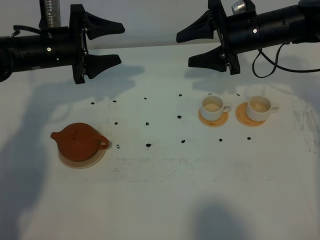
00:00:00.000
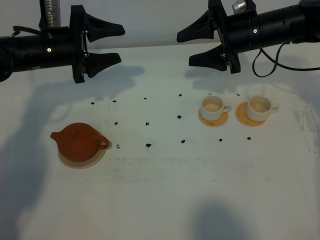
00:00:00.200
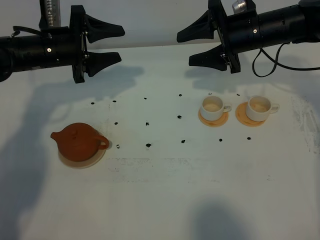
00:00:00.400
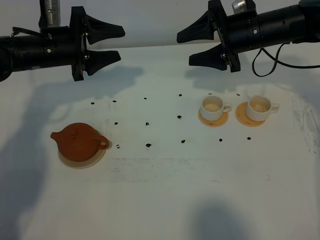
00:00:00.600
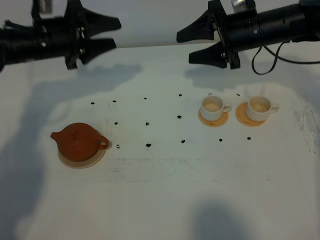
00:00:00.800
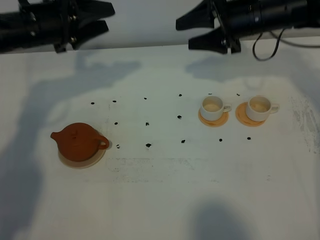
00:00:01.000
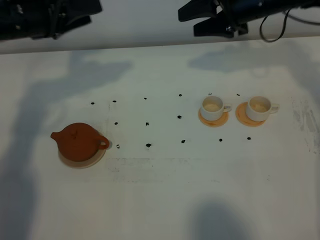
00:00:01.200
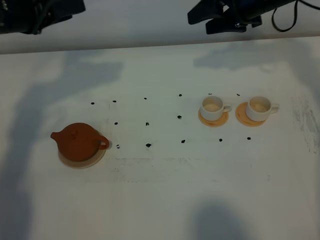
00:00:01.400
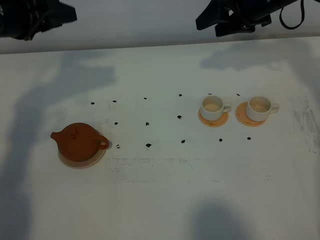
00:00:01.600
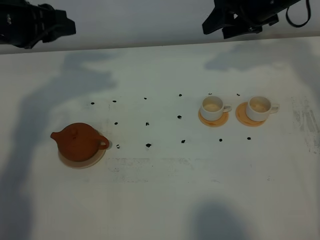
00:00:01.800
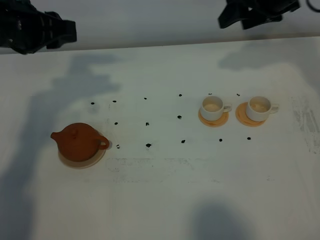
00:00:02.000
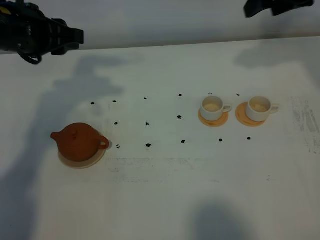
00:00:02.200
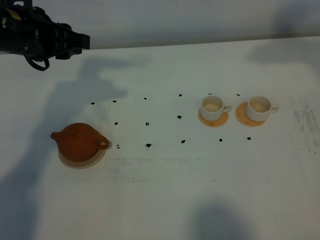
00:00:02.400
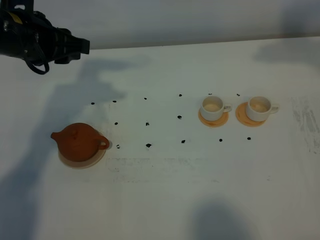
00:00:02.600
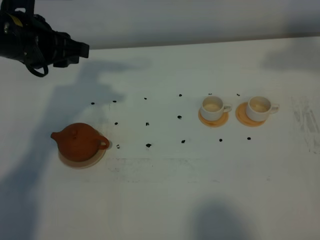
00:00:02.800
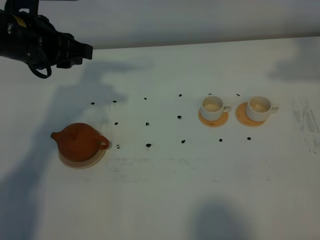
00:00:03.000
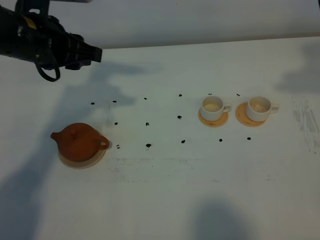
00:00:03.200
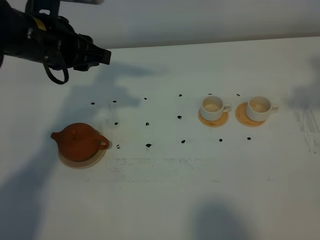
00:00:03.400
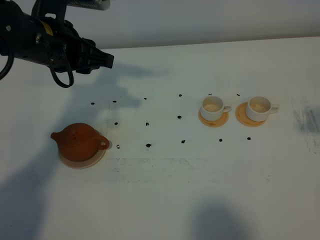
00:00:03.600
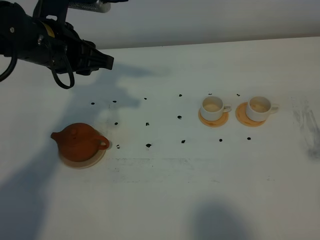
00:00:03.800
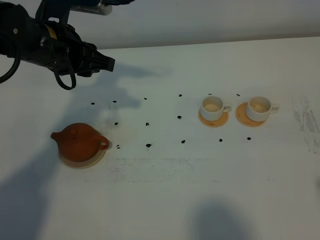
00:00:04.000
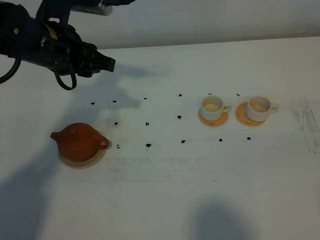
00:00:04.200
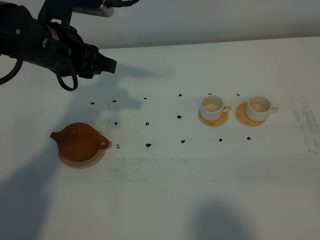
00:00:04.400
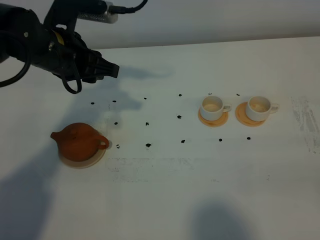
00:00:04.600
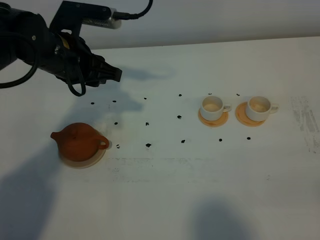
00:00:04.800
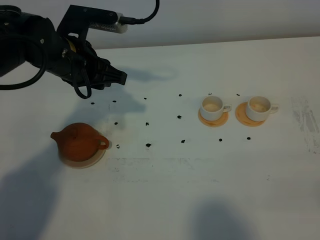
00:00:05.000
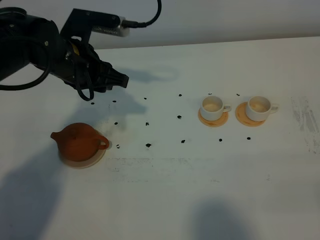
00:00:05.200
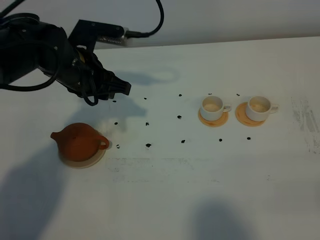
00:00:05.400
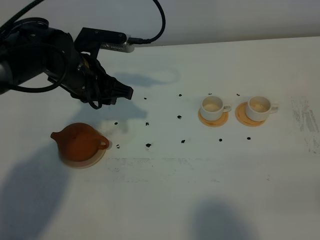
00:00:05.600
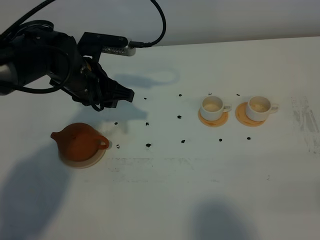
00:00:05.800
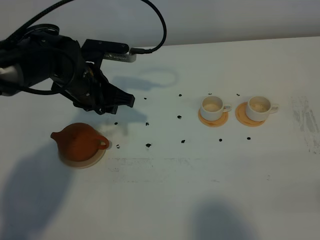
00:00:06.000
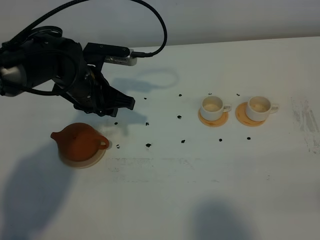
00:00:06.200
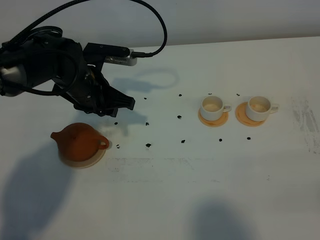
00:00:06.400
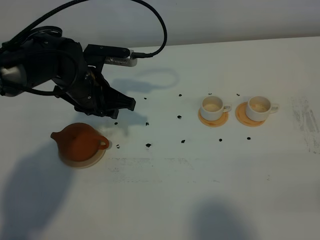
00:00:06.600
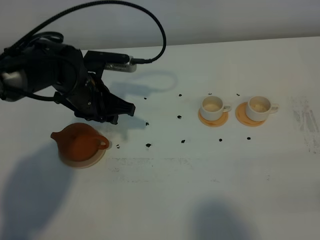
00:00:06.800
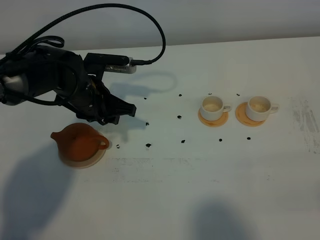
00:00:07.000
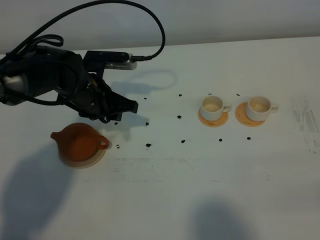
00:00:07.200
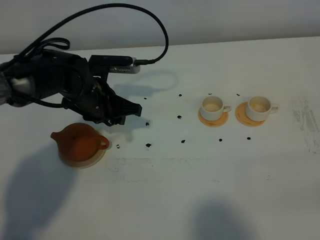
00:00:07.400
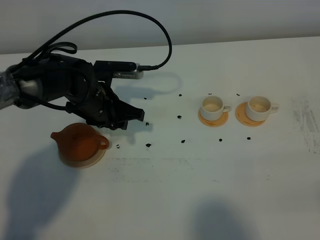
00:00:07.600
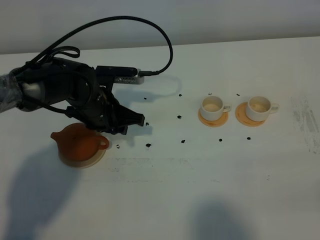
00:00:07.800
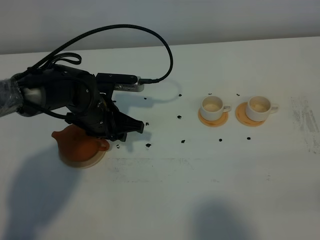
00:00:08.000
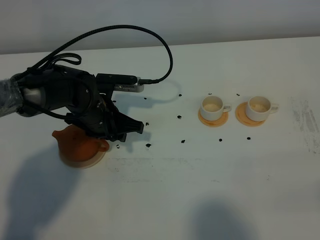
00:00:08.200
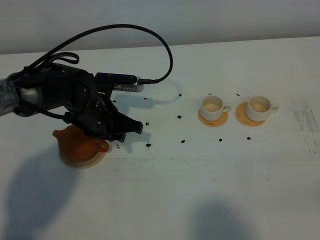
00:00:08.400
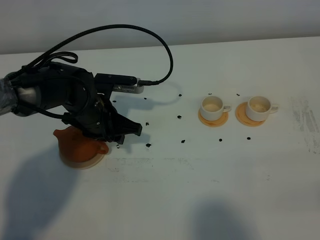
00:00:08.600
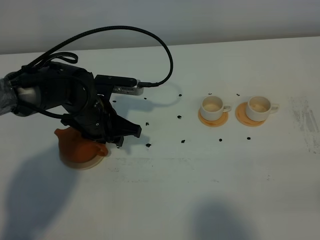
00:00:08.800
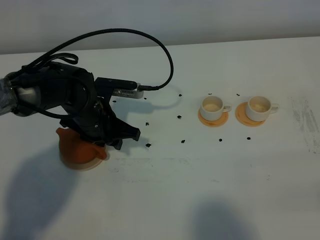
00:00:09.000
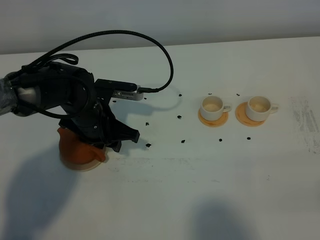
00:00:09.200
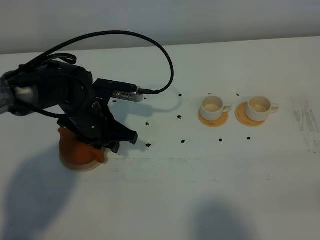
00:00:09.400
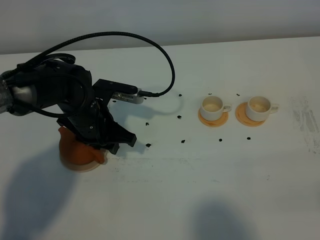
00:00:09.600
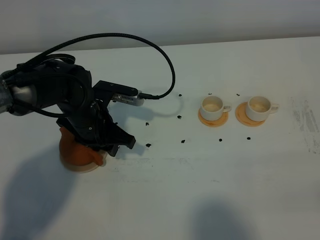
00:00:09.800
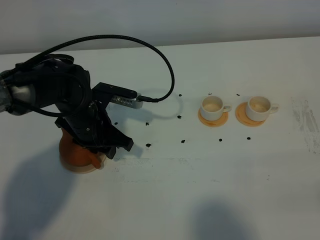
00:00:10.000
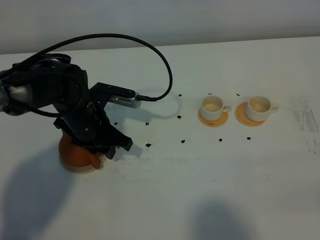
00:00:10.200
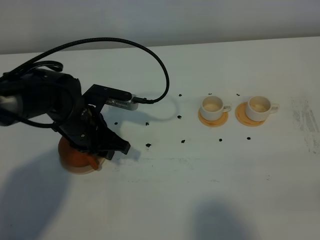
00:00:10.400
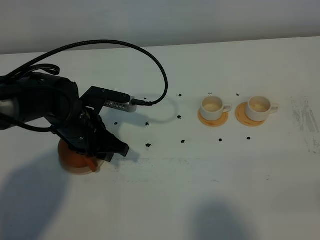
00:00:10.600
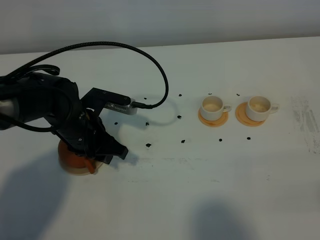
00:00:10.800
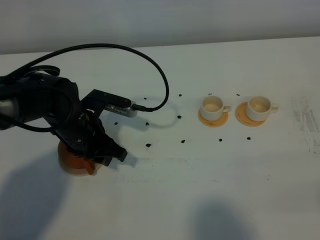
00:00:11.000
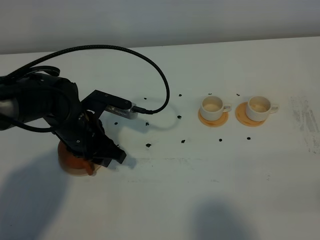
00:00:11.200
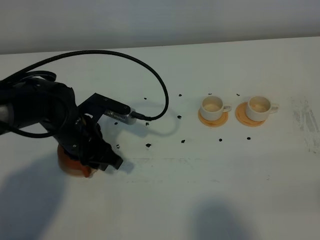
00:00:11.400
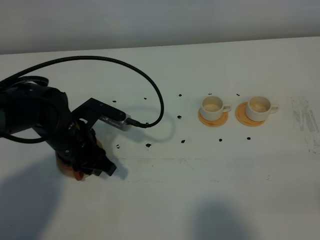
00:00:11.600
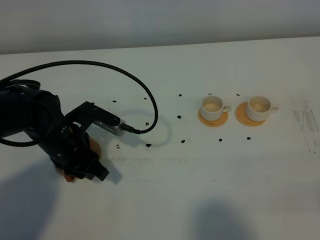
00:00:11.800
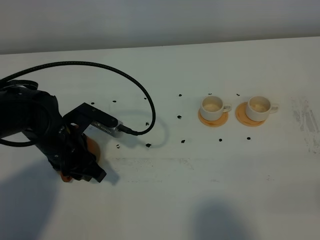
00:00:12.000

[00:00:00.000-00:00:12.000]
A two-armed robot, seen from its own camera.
Task of the whole recording: grasp the brown teapot and pour the tea into the two white teacups one by one, put the brown teapot back in its original place.
00:00:00.000 to 00:00:01.600: The left gripper heads upward and backward, covering about 15 cm; the right gripper moves upward, approximately 5 cm.
00:00:01.600 to 00:00:03.000: The left gripper heads to the right, covering roughly 5 cm, while the right gripper shifts approximately 20 cm backward, upward and to the right.
00:00:03.000 to 00:00:04.400: The right gripper is displaced backward and downward by approximately 30 cm.
00:00:04.400 to 00:00:06.000: The left gripper goes about 10 cm downward.
00:00:06.000 to 00:00:07.600: The right gripper closes up.
00:00:07.600 to 00:00:10.400: The grippers move only a little.
00:00:10.400 to 00:00:12.000: There are only small adjustments of the grippers.

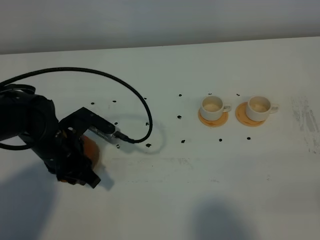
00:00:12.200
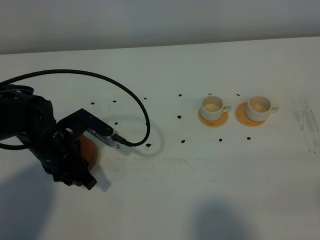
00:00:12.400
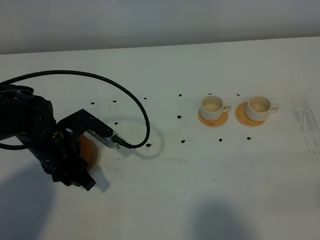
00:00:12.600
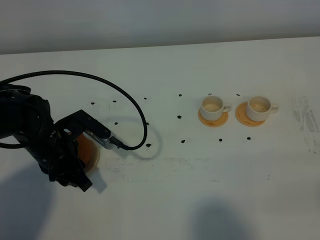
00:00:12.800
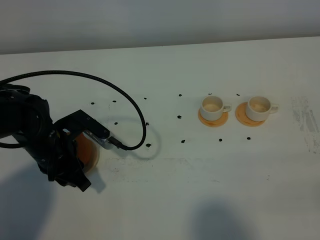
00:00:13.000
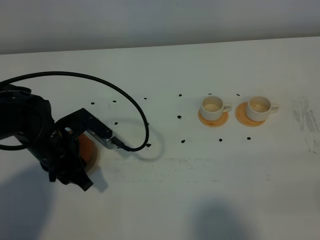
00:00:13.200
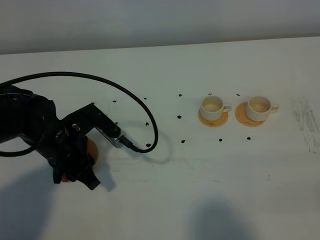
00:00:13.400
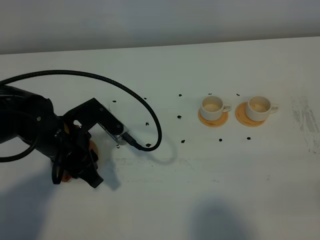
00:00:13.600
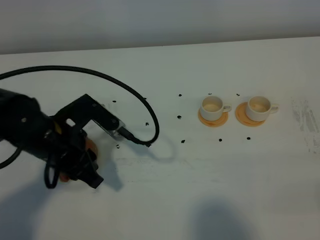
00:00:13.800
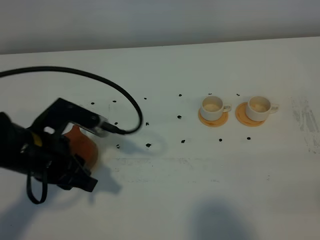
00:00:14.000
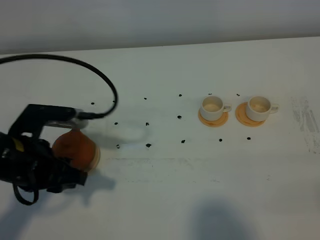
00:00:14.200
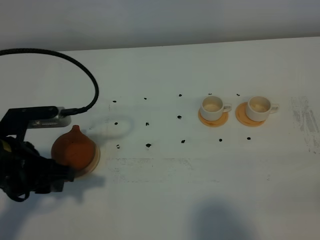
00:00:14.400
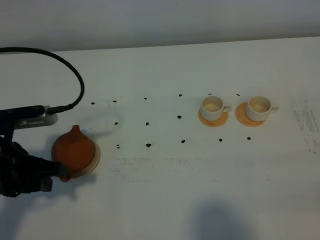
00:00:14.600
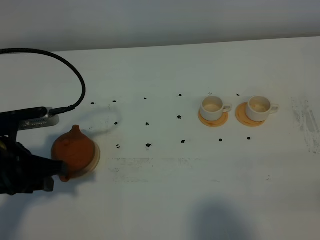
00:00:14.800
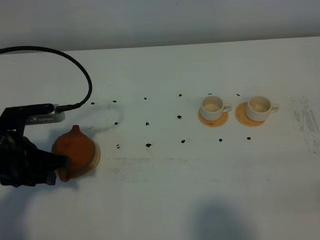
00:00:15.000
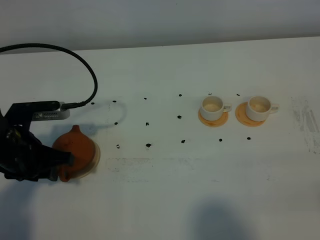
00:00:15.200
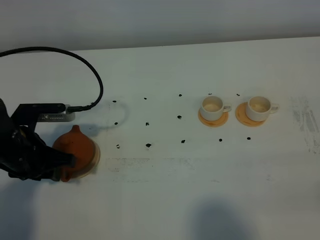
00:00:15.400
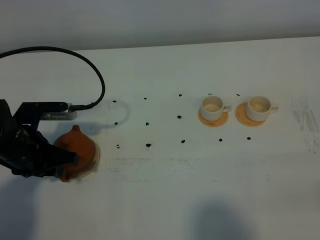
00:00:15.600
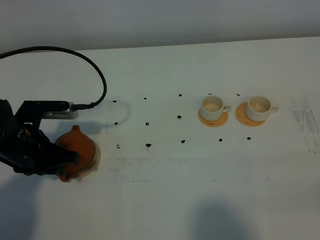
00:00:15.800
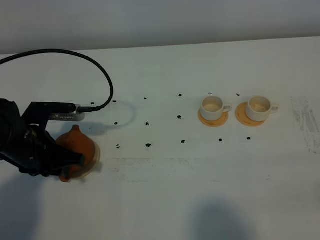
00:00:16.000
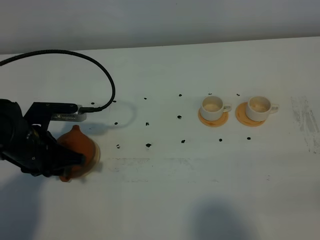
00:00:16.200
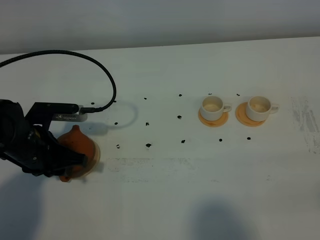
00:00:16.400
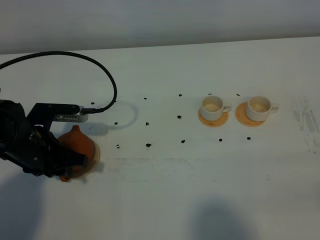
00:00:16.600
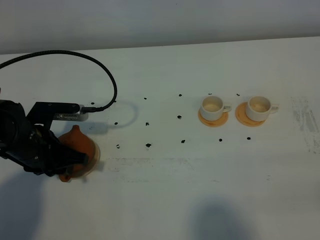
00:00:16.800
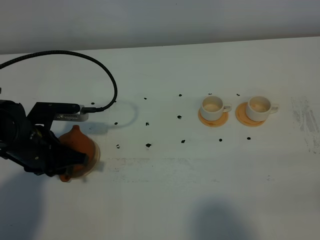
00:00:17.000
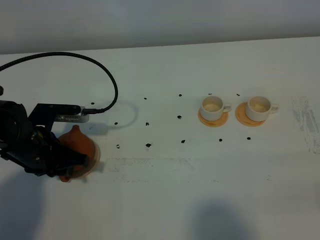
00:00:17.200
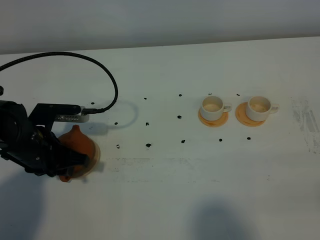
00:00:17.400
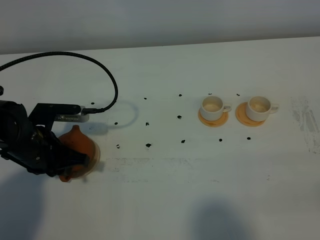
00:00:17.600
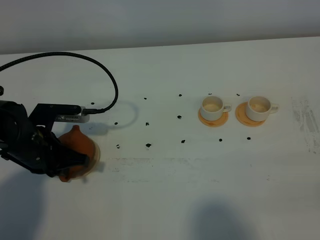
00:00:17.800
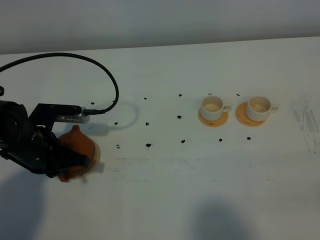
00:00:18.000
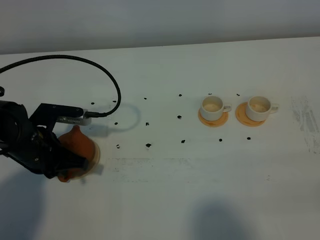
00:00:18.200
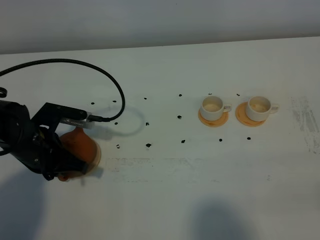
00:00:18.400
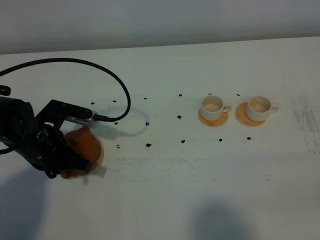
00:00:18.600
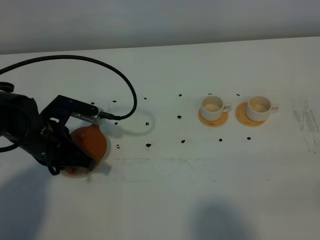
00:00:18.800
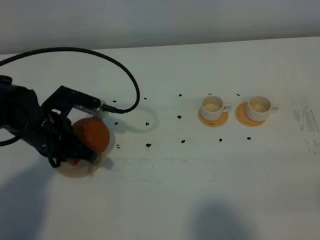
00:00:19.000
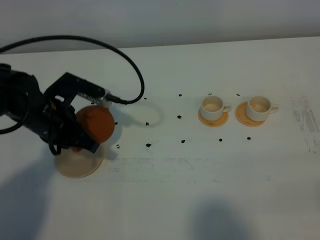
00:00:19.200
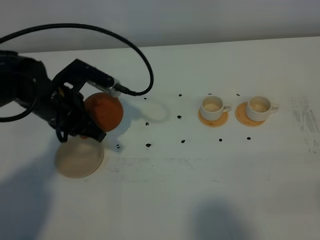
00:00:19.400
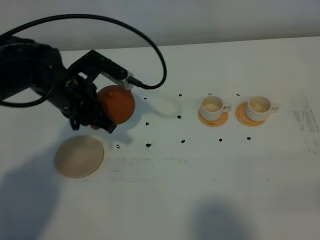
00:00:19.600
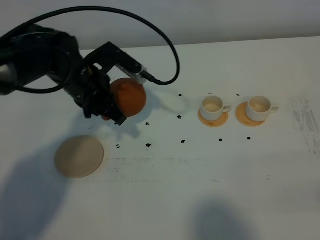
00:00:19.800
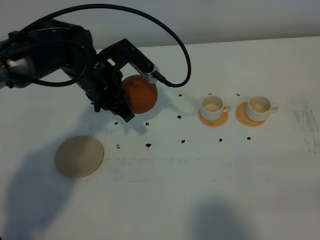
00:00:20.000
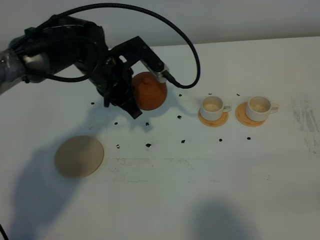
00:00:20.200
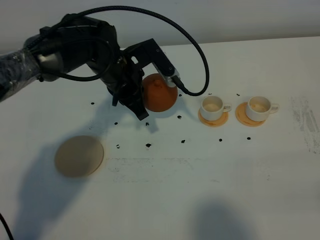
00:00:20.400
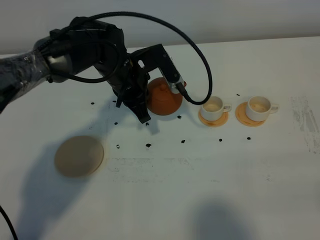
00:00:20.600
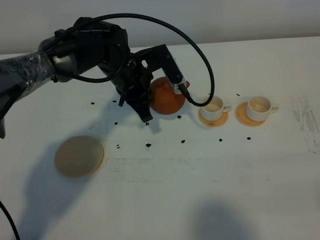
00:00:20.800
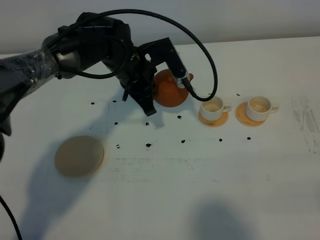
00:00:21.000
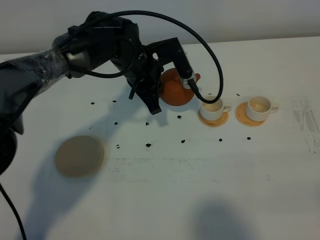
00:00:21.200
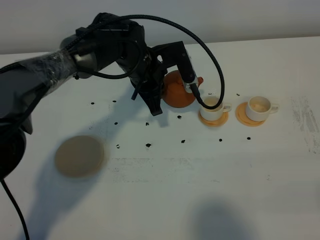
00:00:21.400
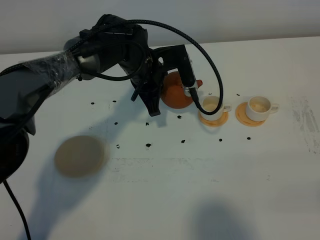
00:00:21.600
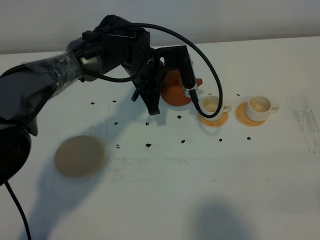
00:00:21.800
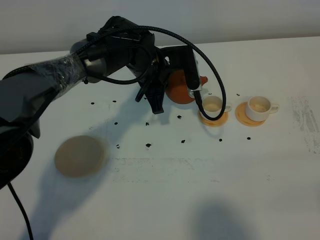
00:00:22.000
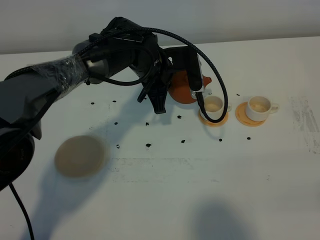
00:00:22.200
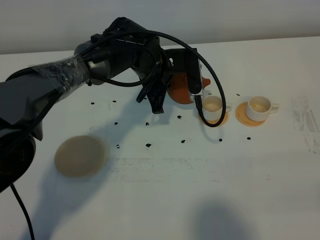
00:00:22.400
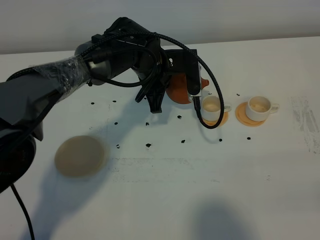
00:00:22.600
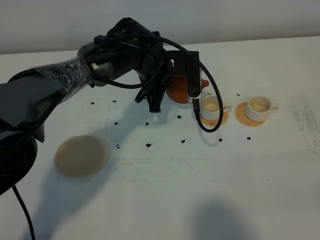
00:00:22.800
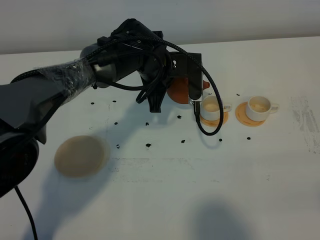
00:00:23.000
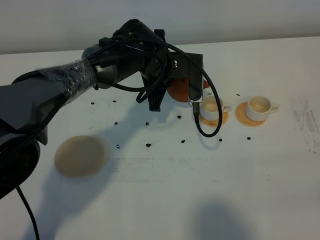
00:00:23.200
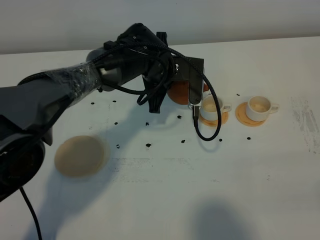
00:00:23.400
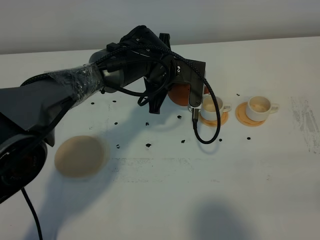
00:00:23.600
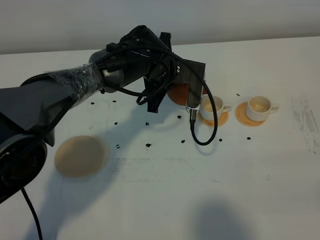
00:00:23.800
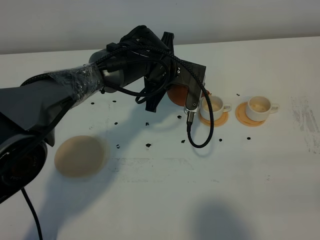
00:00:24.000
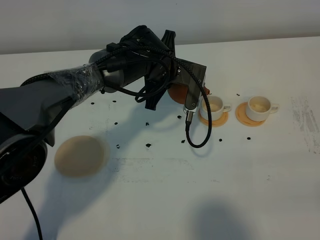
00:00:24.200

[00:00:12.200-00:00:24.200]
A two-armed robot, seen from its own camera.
Task of the whole recording: grasp the brown teapot and pour the tea into the two white teacups one by one, put the brown teapot back in its original place.
Step, 00:00:12.200 to 00:00:19.200: Pick up the teapot with the left gripper.
00:00:12.200 to 00:00:13.800: The left gripper is displaced upward by roughly 5 cm.
00:00:13.800 to 00:00:15.200: The left gripper is displaced to the left by some 5 cm.
00:00:15.200 to 00:00:16.600: The grippers make only small movements.
00:00:16.600 to 00:00:18.200: The left gripper closes up.
00:00:18.200 to 00:00:19.800: The left gripper heads to the right, forward and upward, covering approximately 15 cm.
00:00:19.800 to 00:00:21.200: The left gripper shifts about 10 cm to the right and forward.
